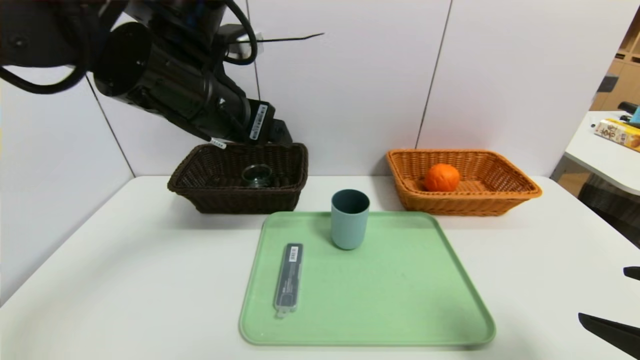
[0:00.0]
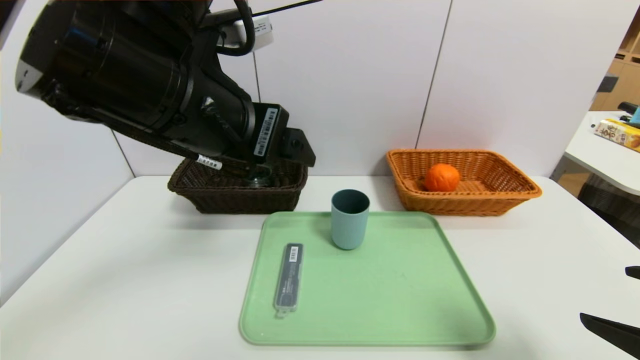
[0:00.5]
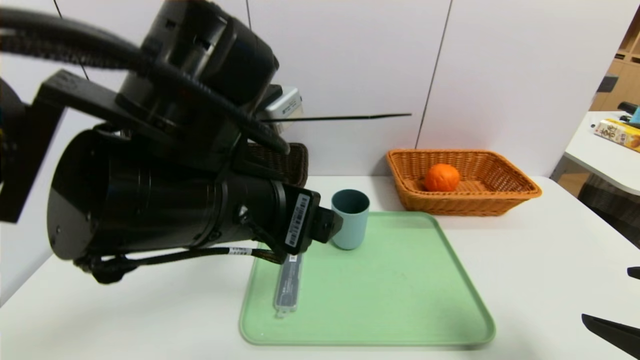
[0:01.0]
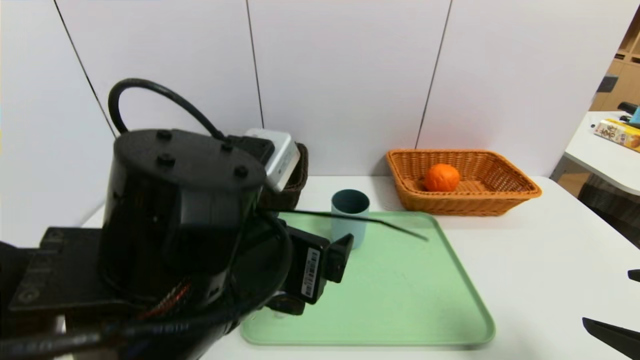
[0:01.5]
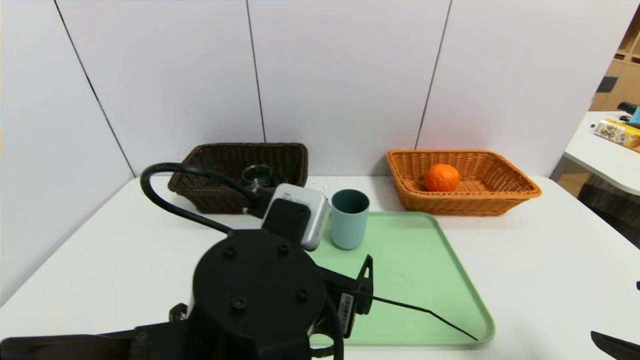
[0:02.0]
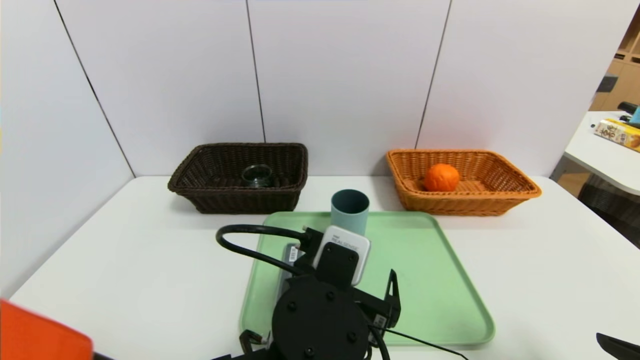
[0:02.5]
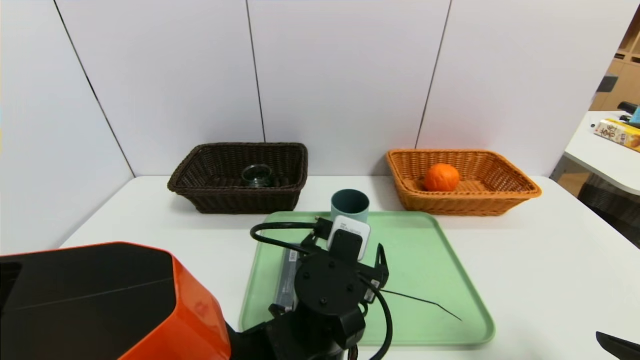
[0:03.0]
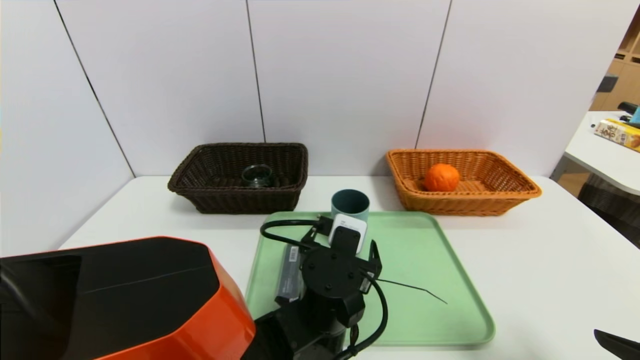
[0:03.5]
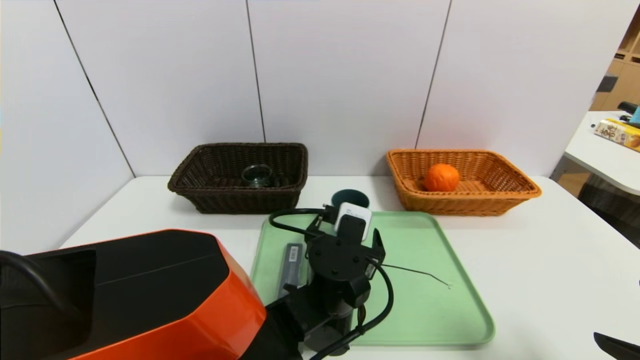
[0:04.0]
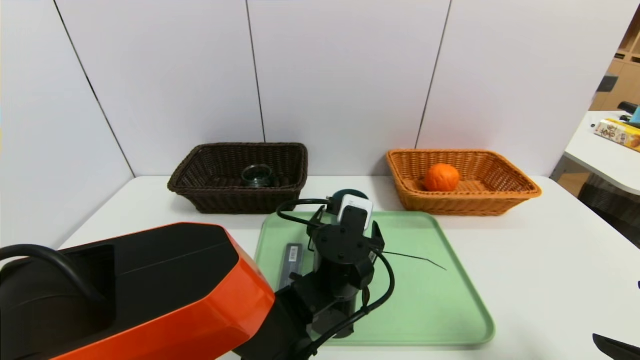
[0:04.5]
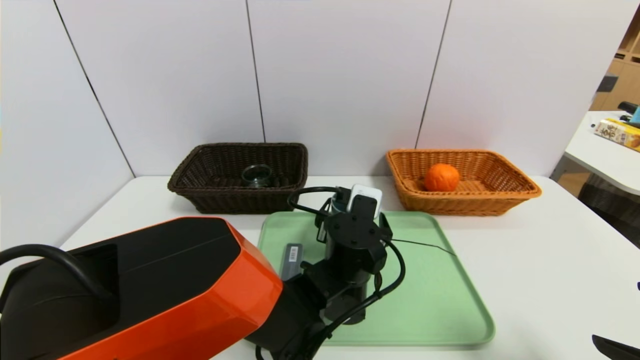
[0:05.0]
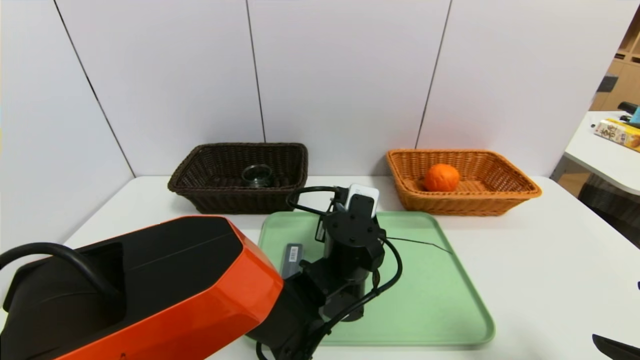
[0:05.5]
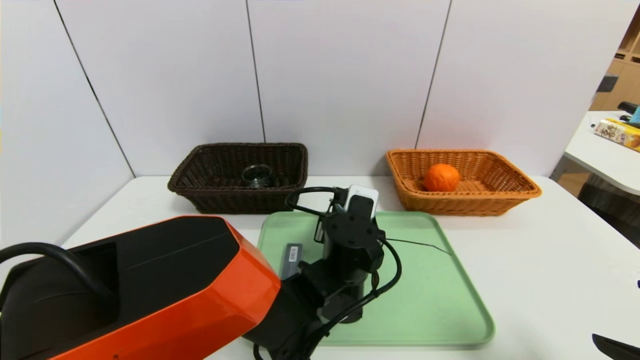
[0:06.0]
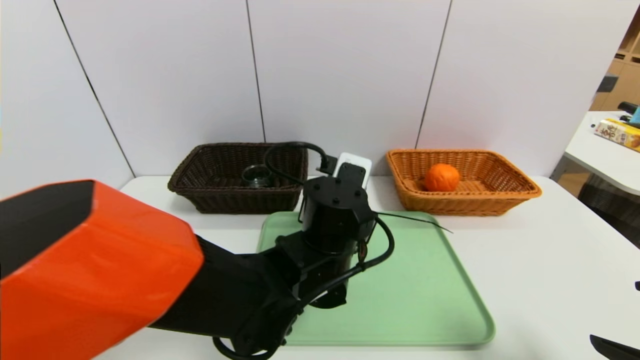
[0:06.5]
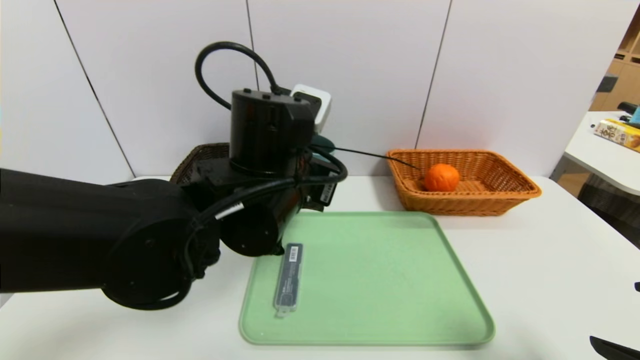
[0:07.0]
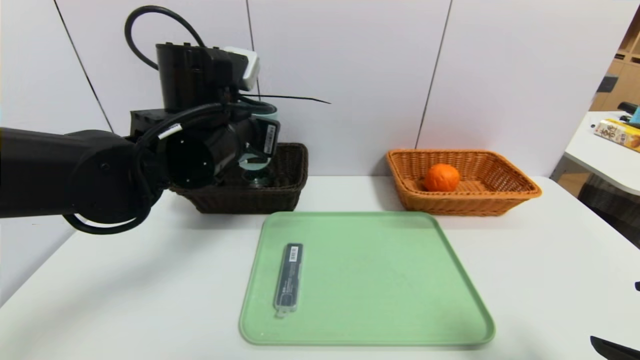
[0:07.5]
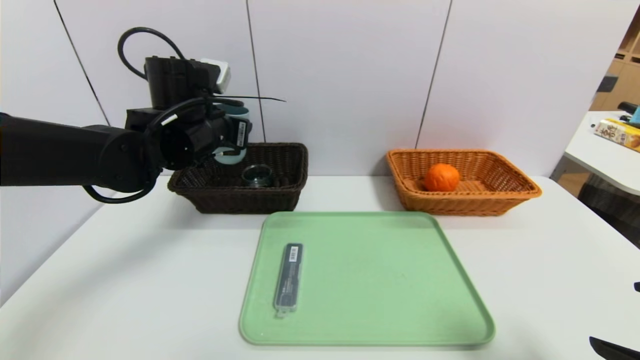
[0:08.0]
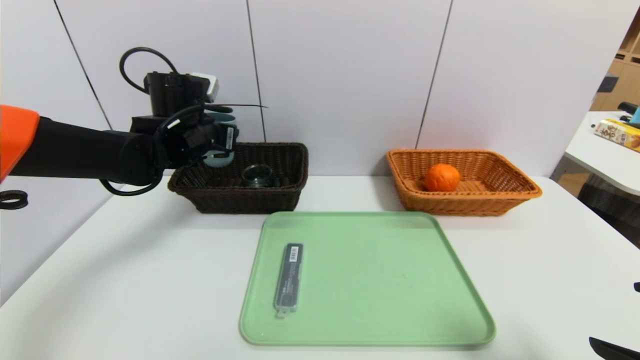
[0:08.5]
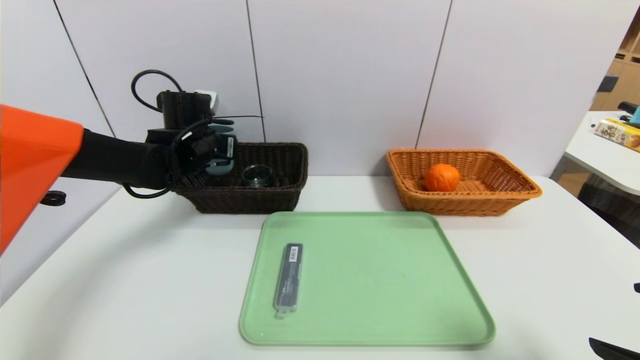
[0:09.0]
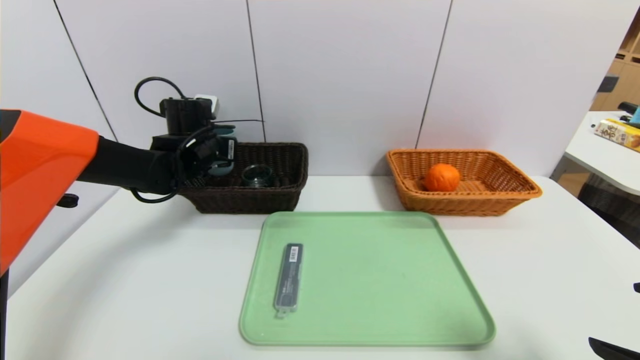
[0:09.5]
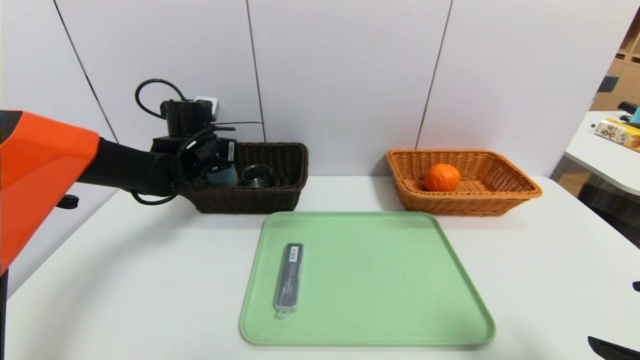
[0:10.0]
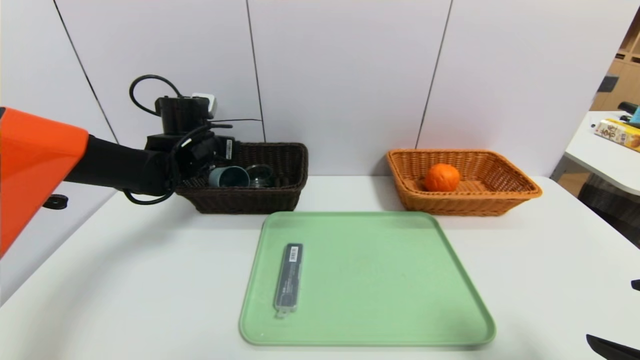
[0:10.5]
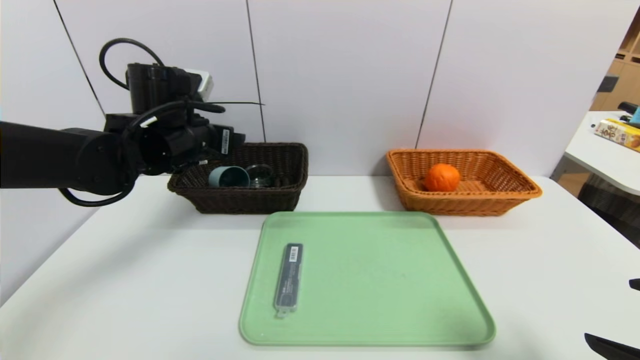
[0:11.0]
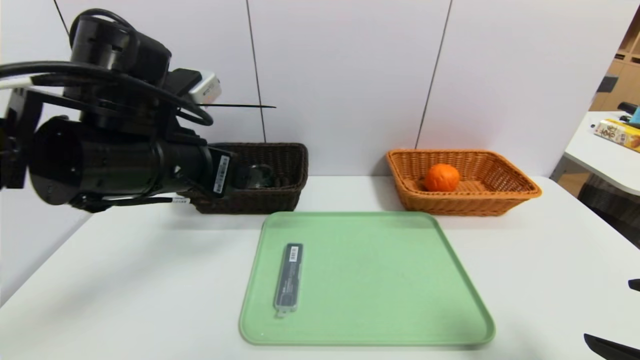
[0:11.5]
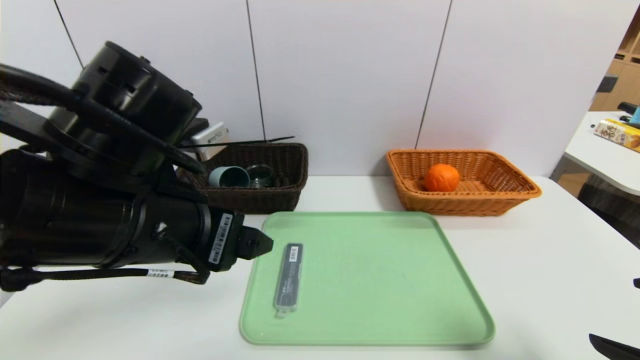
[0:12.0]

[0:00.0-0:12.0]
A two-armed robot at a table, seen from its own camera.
Task of the whole recording: place the food in the right basket with the right gripper, and place the non food items in the left basket with the left gripper.
Step, 0:00.0 to 0:10.5: Grasp the blue cup and put it in the left basket.
0:00.0 to 0:02.0: The left gripper is displaced downward, backward and to the right by some 20 cm.
0:02.0 to 0:04.0: The left gripper is displaced forward, downward and to the right by approximately 15 cm.
0:04.0 to 0:06.0: The left gripper closes its fingers.
0:06.0 to 0:08.0: The left gripper shifts about 25 cm to the left, upward and forward.
0:08.0 to 0:10.0: The left gripper travels forward and downward by roughly 10 cm.
0:10.0 to 0:12.0: The left gripper shifts approximately 25 cm backward.

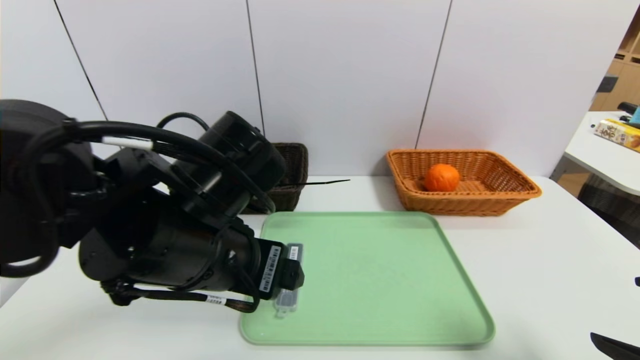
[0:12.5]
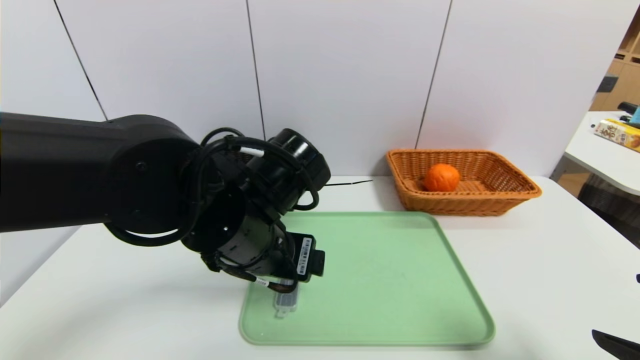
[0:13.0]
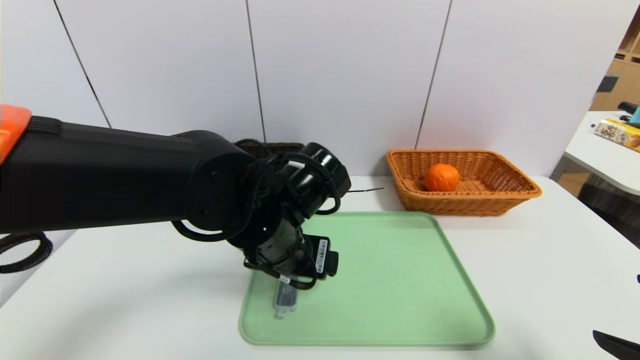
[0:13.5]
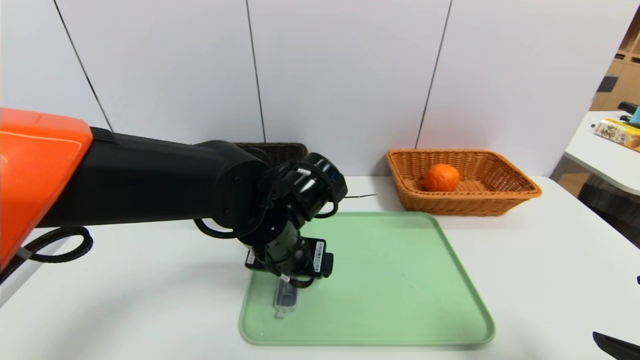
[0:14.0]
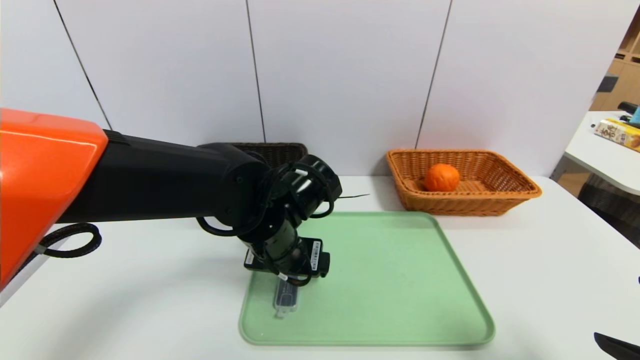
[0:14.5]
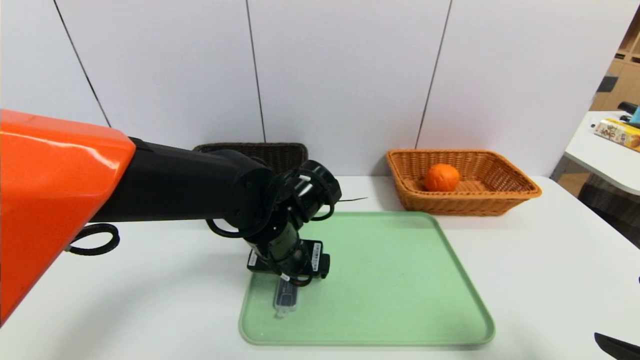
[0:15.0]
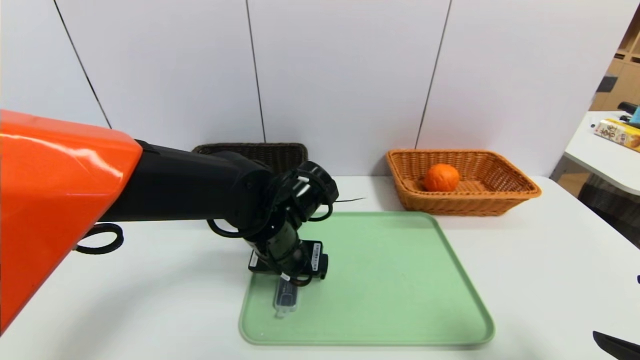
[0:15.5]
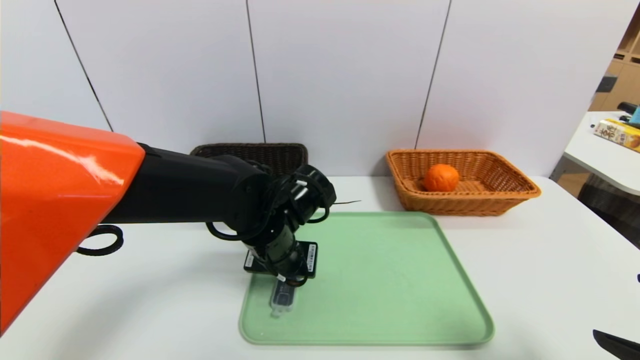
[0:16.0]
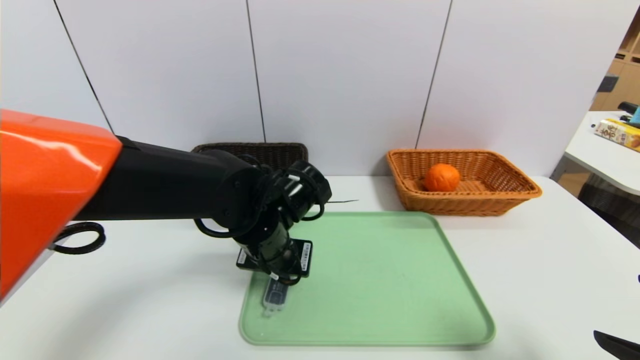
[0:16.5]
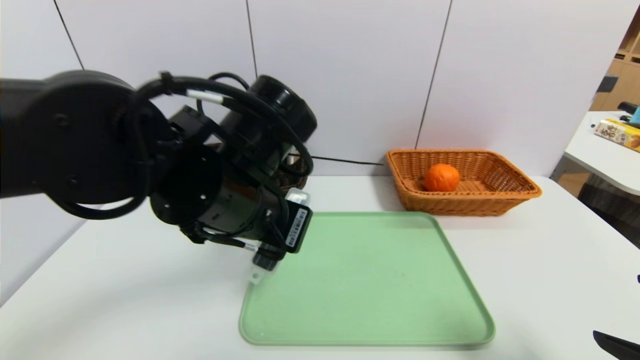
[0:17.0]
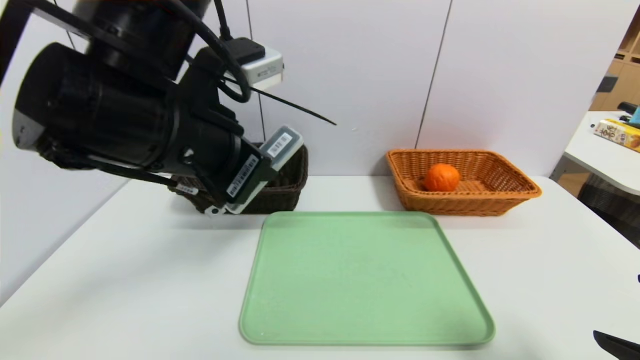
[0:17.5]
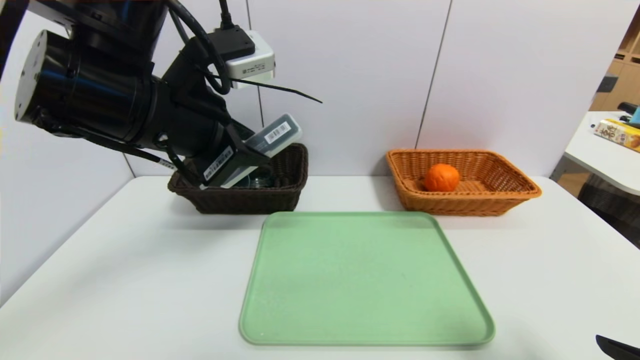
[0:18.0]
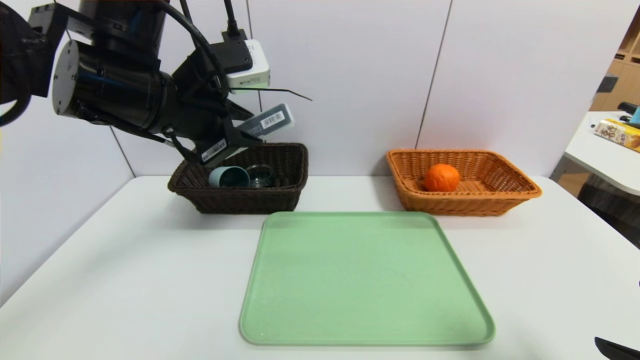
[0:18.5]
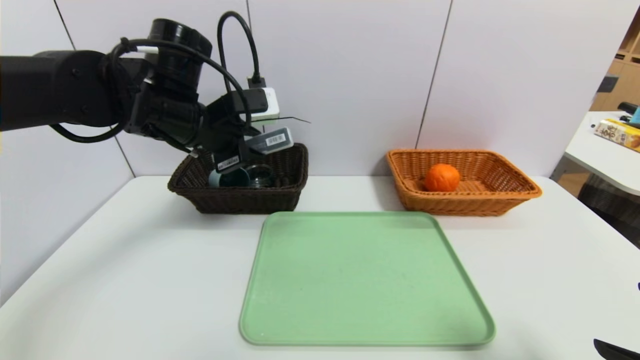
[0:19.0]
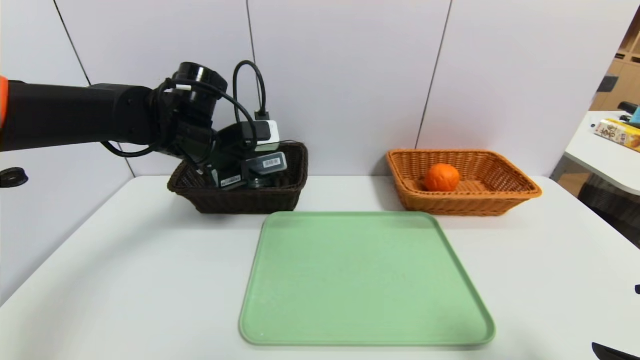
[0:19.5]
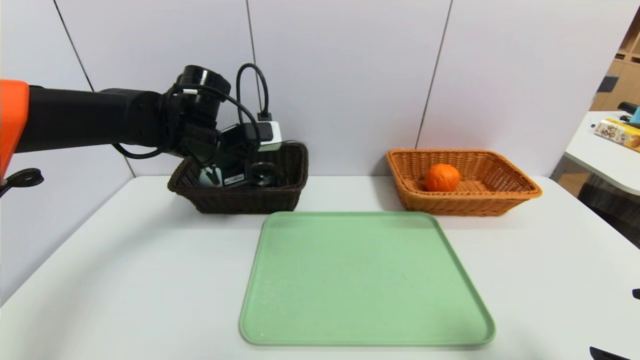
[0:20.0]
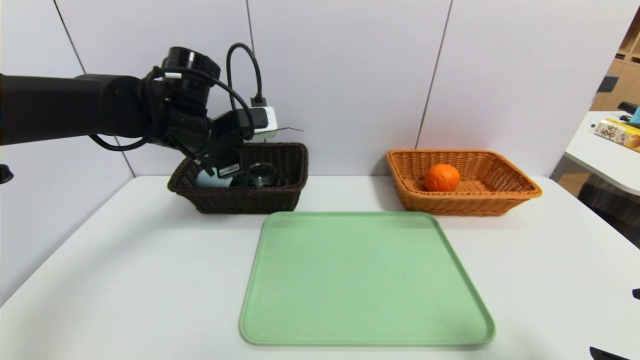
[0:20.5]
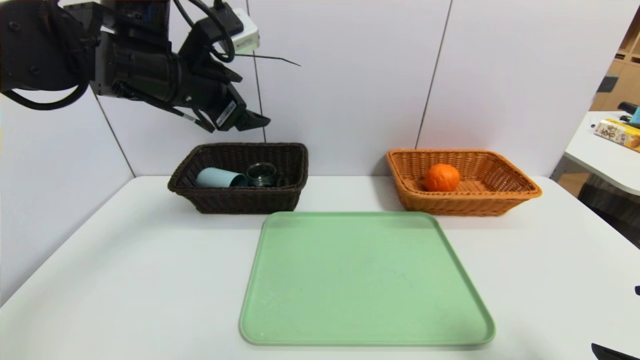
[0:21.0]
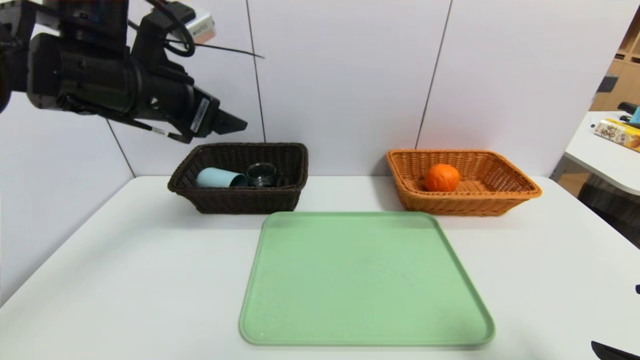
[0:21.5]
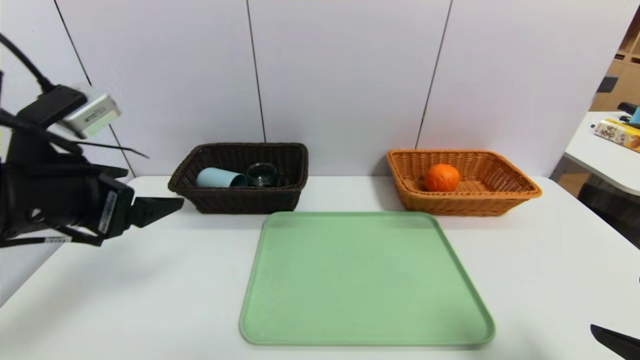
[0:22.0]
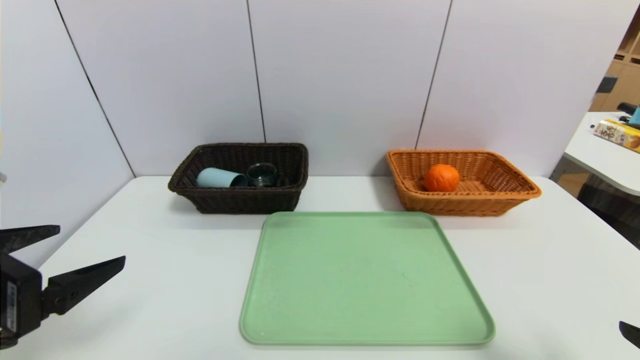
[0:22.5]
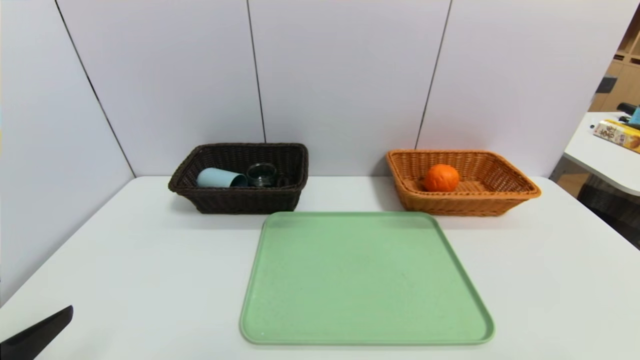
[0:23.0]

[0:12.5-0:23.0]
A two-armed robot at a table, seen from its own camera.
Task of the whole recording: place the food in the right basket with the right gripper, and place the non food items in the left basket with the left gripper.
Step, 0:12.5 to 0:20.5: Grasp the compass and put it in the left basket.
0:12.5 to 0:14.5: The left gripper moves forward, downward and to the right, approximately 10 cm.
0:14.5 to 0:16.5: The left gripper closes.
0:16.5 to 0:19.0: The left gripper goes some 15 cm upward, to the left and forward.
0:19.0 to 0:21.0: The left gripper is displaced upward by about 5 cm, and opens its fingers.
0:21.0 to 0:23.0: The left gripper goes approximately 35 cm backward, downward and to the left. The right gripper shifts approximately 5 cm backward.
